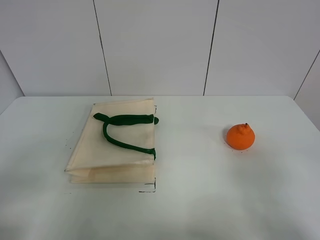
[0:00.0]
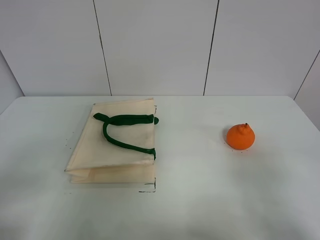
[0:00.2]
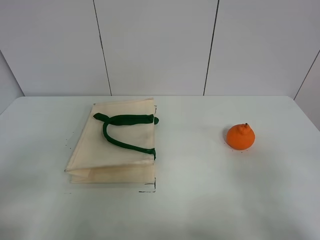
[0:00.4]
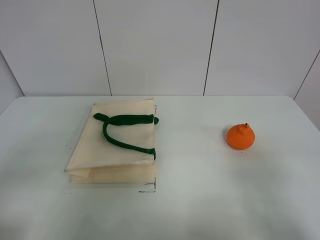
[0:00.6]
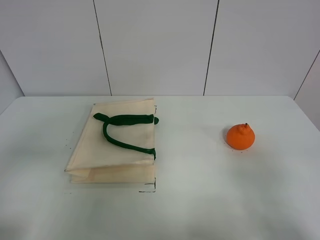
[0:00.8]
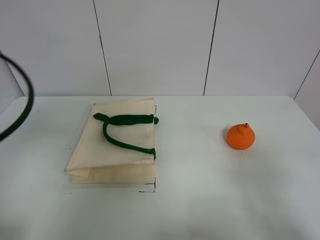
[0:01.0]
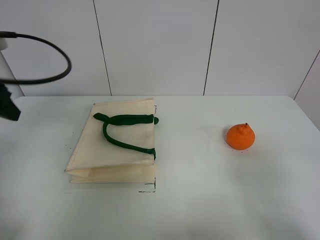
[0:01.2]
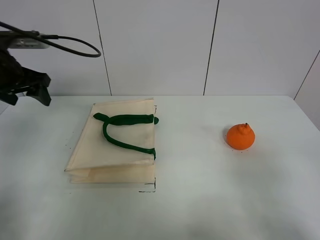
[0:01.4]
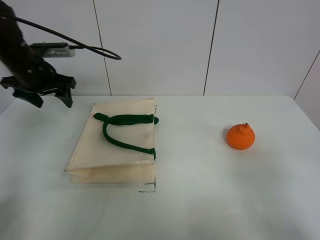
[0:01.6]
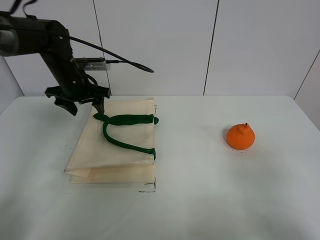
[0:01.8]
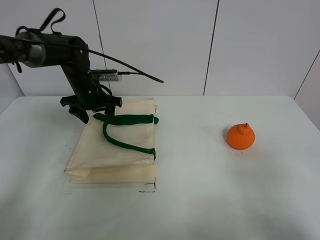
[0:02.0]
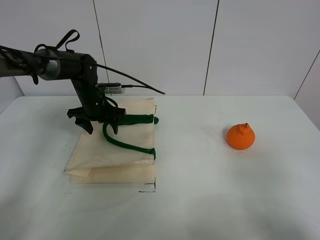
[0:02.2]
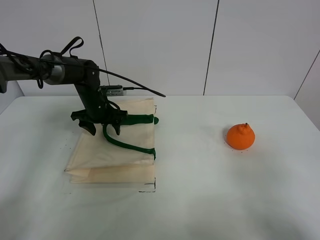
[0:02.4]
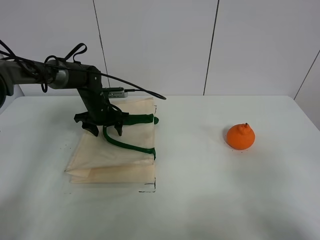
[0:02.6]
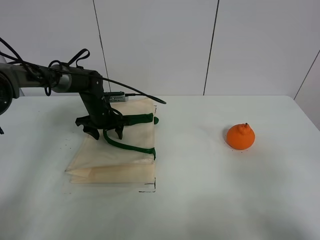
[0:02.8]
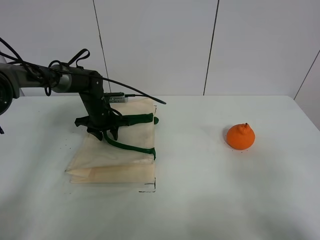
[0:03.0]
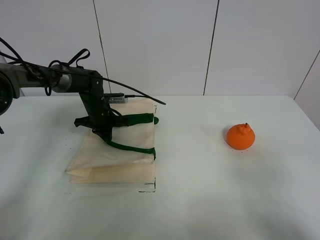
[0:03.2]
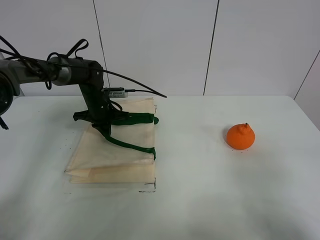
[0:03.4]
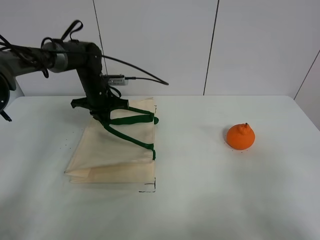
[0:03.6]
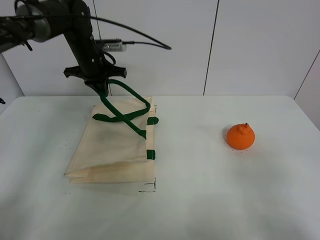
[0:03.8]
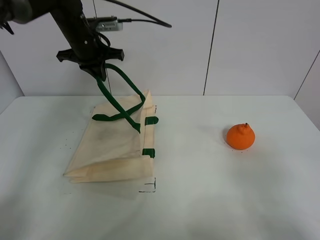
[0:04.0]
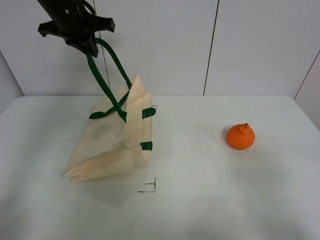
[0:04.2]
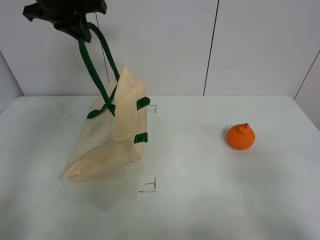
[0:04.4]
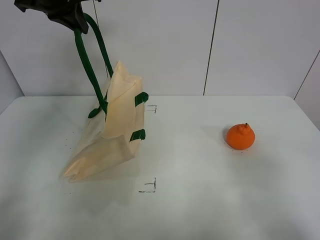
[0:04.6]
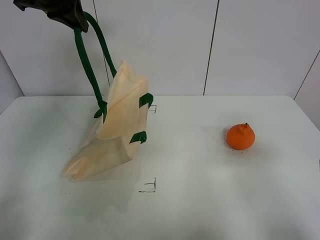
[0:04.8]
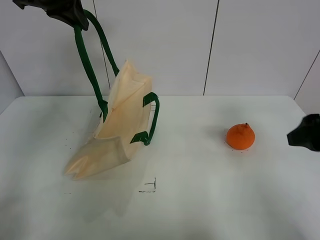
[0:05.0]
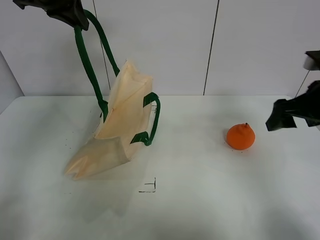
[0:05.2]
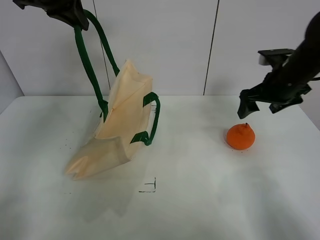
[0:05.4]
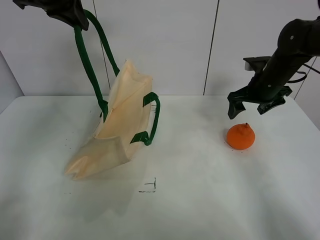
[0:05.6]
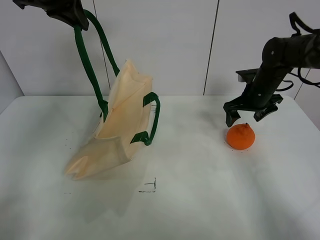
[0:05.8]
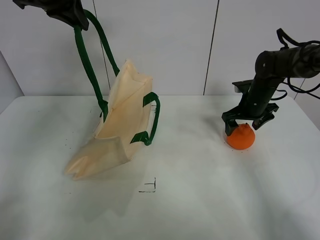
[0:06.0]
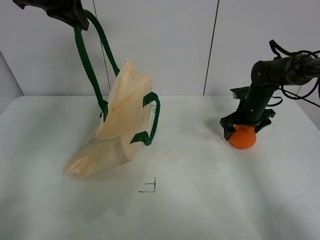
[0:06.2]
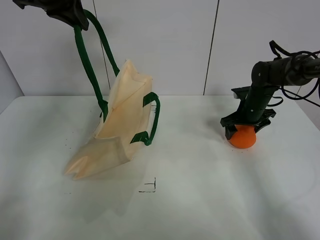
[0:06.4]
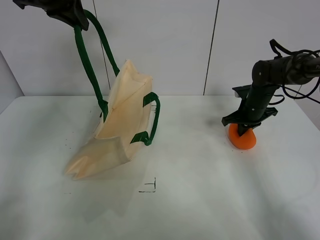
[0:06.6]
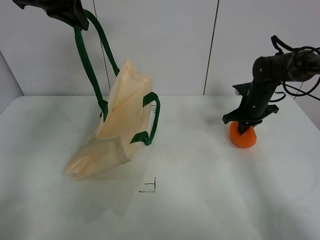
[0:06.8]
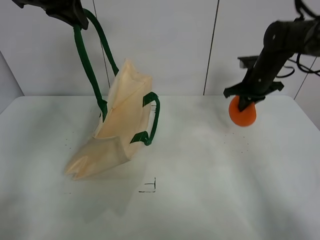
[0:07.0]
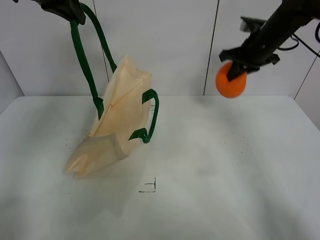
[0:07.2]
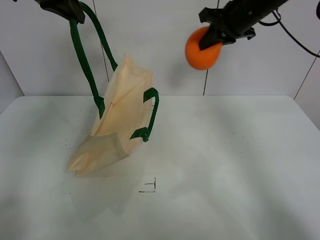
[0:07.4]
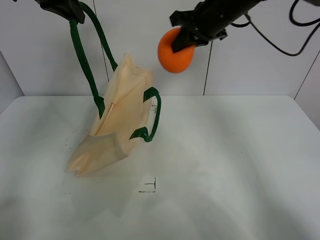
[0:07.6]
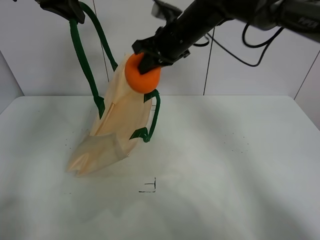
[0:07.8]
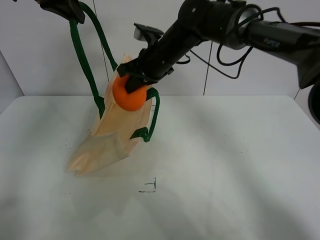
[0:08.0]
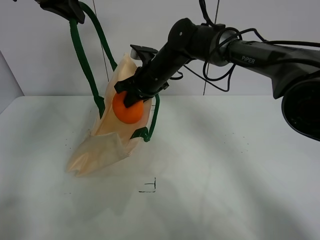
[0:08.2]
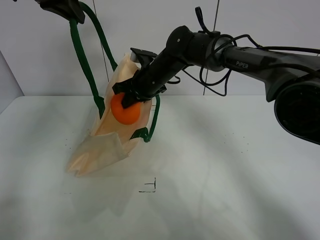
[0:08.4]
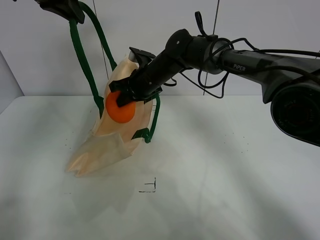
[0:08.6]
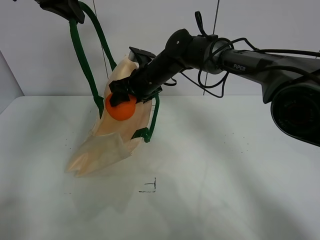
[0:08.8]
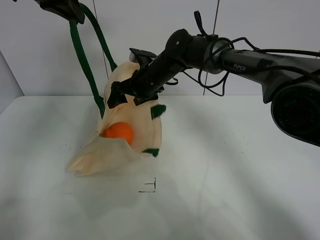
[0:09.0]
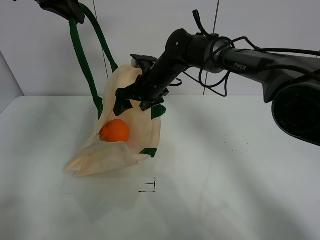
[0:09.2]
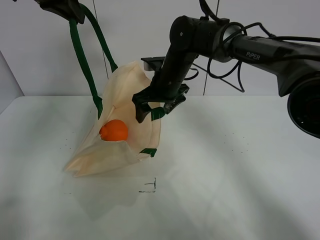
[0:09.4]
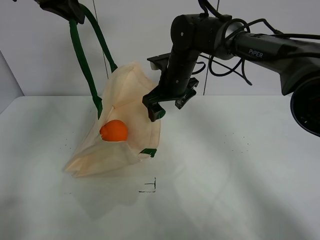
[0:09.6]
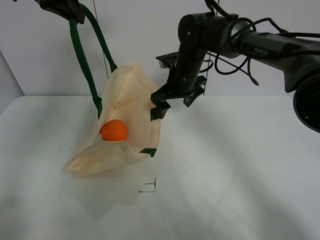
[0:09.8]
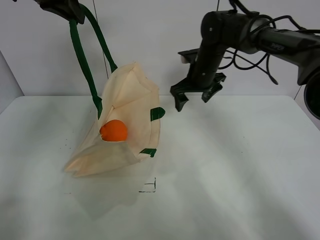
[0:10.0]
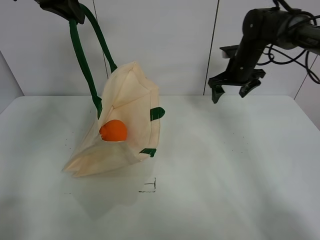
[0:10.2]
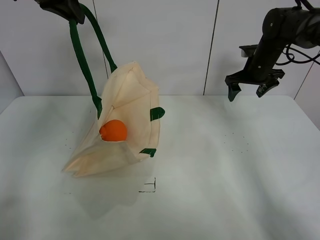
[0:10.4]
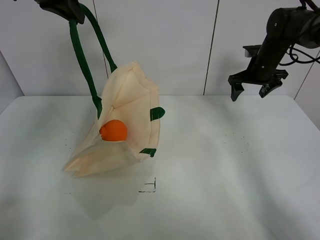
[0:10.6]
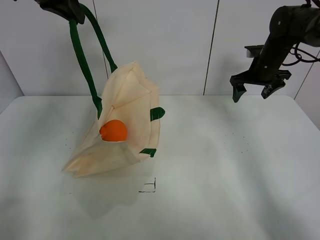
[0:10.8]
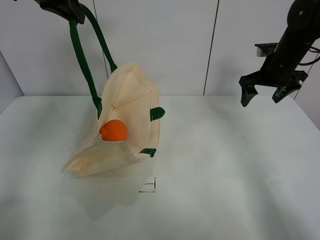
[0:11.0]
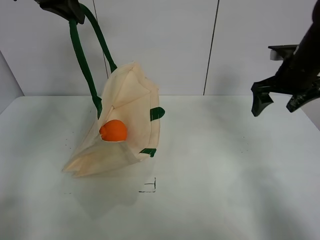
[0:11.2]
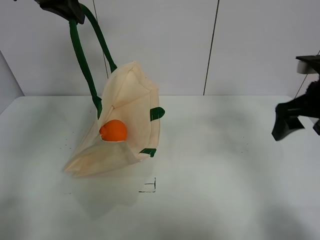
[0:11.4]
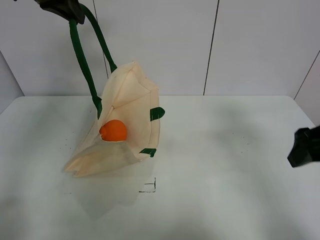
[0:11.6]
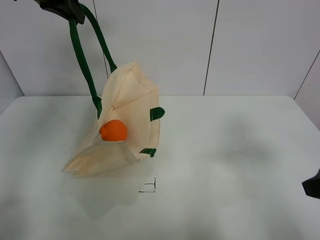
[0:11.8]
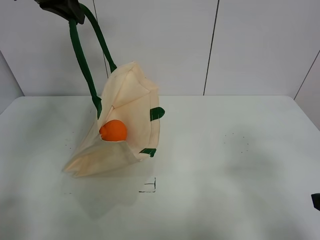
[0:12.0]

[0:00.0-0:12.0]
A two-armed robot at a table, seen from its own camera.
Task of the whole recording: open the white linen bag and put the orange in the bag.
Step, 0:00.0 to 0:04.2: Lift the handbag with left gripper.
Step, 0:04.4 to 0:06.4: Grasp the orange with right gripper.
Step, 0:06.6 to 0:09.0: Place the orange in the handbag with right gripper.
0:00.0 to 0:01.6: The left gripper goes roughly 40 cm forward.
0:01.6 to 0:03.0: The left gripper shifts roughly 20 cm downward and to the right, and closes its fingers.
0:03.0 to 0:04.4: The left gripper moves upward, about 30 cm, and closes its fingers.
0:04.4 to 0:06.0: The right gripper shifts about 40 cm forward.
0:06.0 to 0:07.6: The right gripper is displaced upward and to the left by about 25 cm, and closes its fingers.
0:07.6 to 0:09.0: The right gripper is displaced downward and to the left by roughly 20 cm, and opens its fingers.
0:09.0 to 0:10.4: The right gripper is displaced to the right by approximately 30 cm.
0:10.4 to 0:12.0: The right gripper goes approximately 40 cm backward.

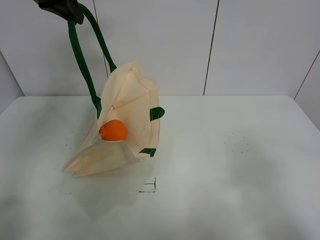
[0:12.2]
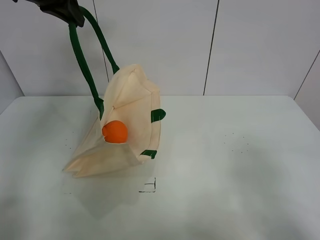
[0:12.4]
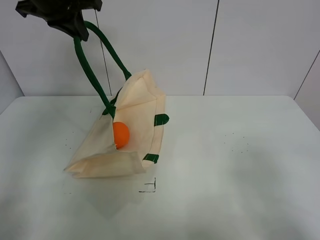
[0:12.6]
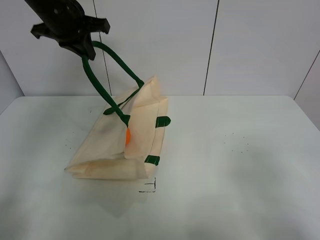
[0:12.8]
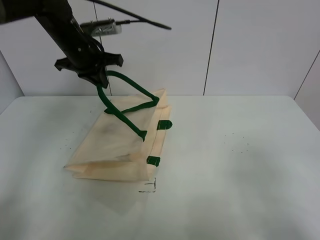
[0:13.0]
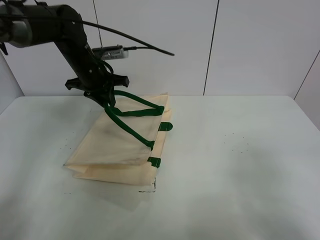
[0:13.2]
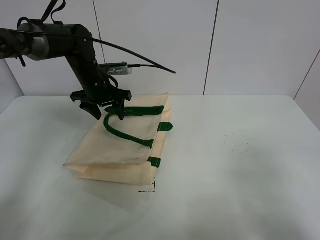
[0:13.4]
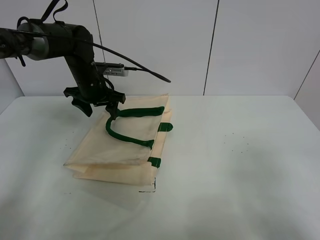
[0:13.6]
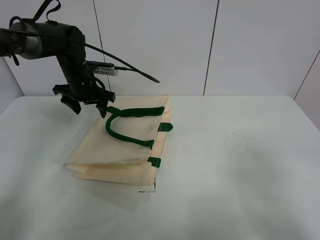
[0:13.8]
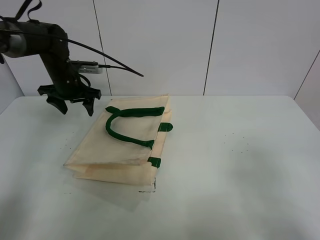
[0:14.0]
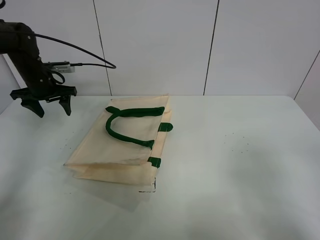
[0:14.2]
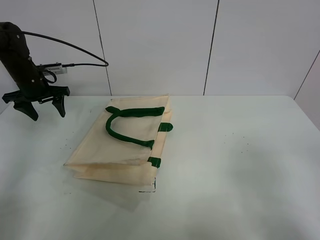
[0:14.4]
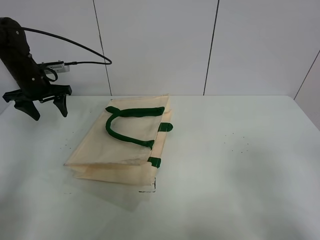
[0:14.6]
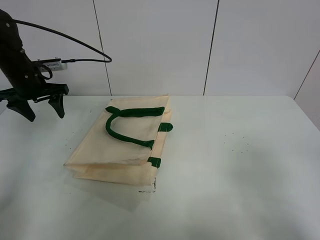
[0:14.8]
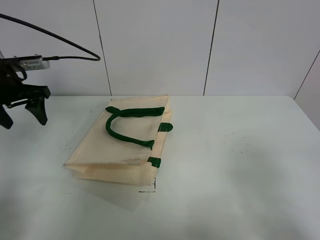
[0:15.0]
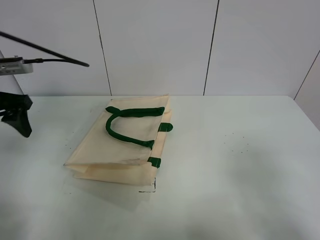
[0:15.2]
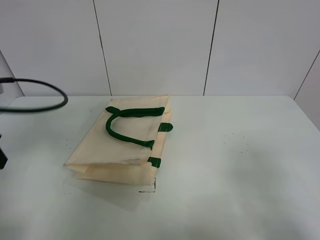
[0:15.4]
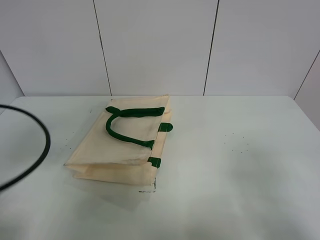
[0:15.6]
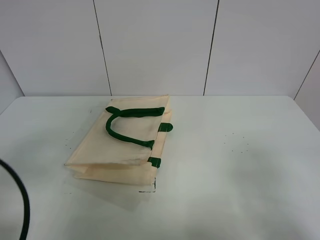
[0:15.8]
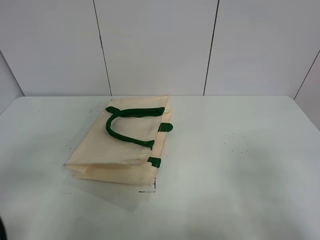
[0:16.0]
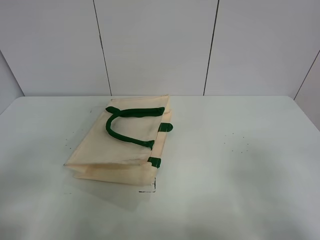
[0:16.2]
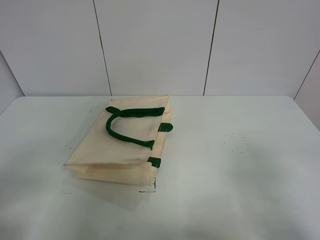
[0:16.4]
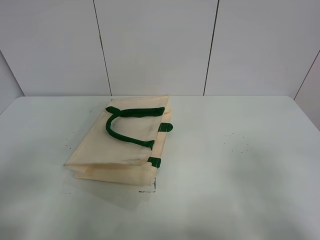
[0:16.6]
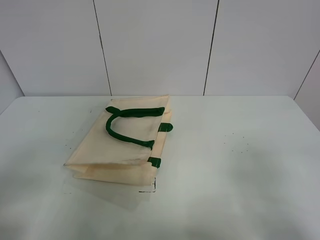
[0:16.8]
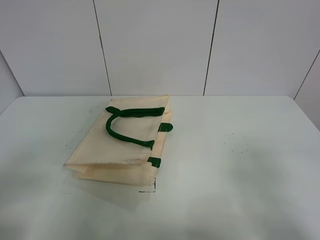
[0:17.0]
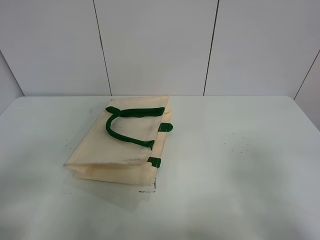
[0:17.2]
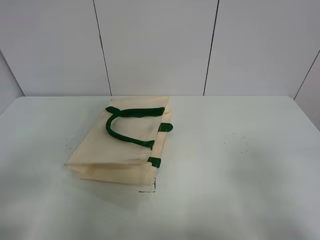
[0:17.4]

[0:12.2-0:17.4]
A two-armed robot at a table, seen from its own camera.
Task of the whole recording: open the white linen bag and put the orange in the bag.
0:12.2 to 0:14.0: The left gripper shifts approximately 25 cm downward, and opens its fingers.
0:14.0 to 0:15.6: The left gripper moves backward, approximately 35 cm.
0:15.6 to 0:17.4: The left gripper goes about 10 cm backward.
